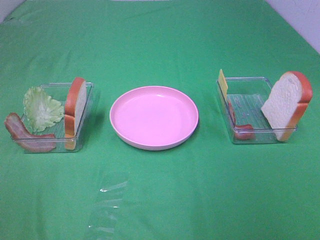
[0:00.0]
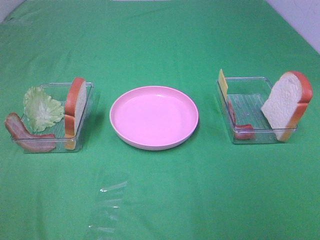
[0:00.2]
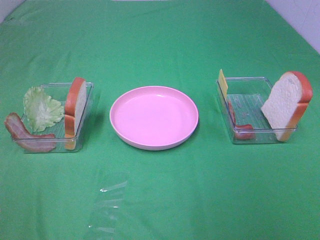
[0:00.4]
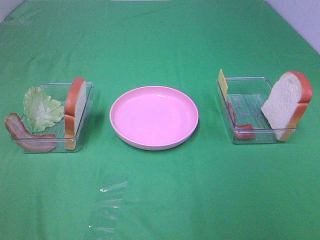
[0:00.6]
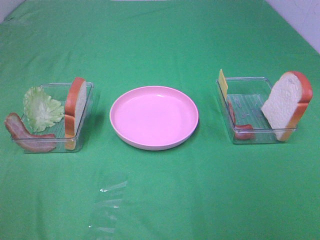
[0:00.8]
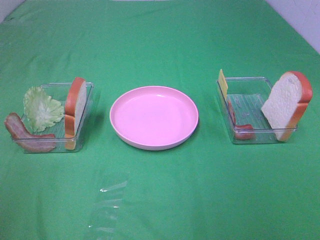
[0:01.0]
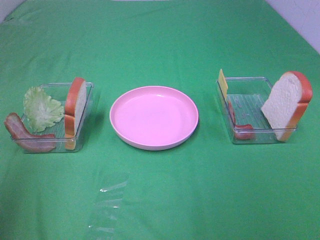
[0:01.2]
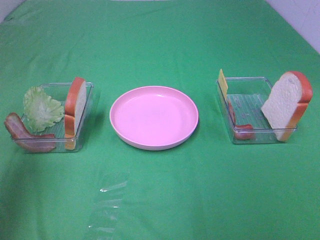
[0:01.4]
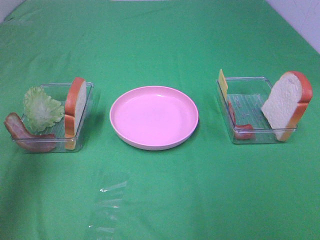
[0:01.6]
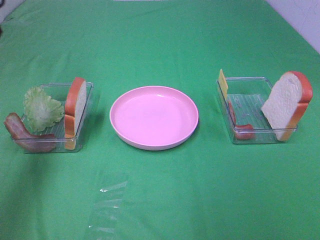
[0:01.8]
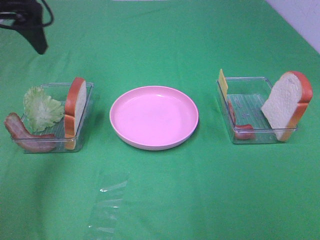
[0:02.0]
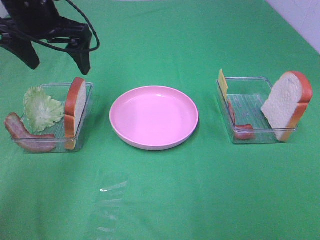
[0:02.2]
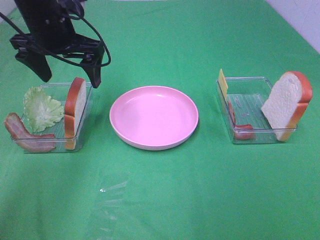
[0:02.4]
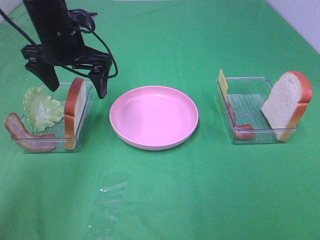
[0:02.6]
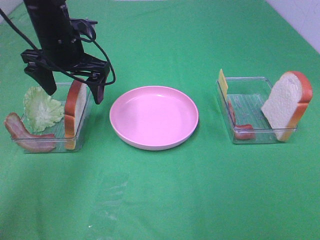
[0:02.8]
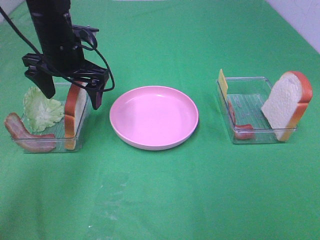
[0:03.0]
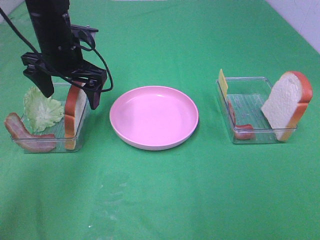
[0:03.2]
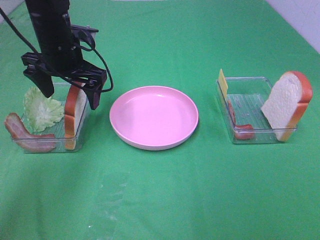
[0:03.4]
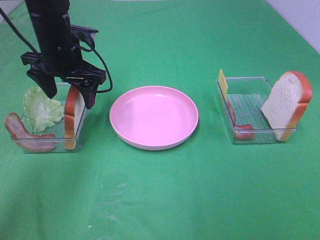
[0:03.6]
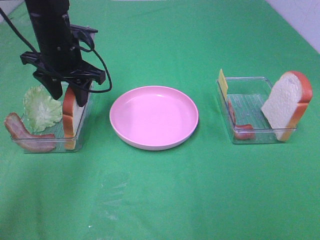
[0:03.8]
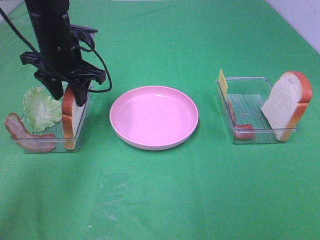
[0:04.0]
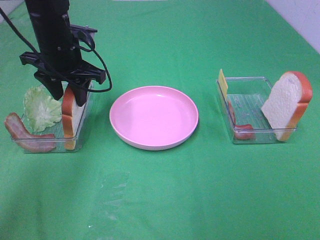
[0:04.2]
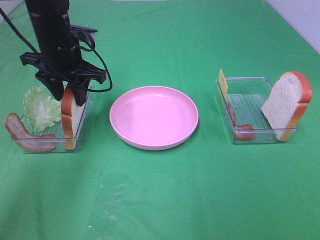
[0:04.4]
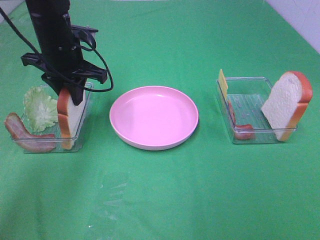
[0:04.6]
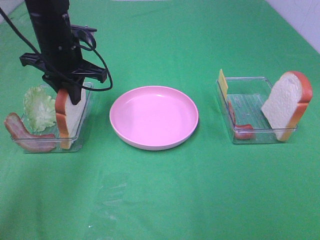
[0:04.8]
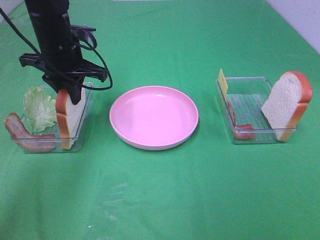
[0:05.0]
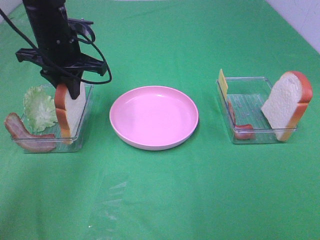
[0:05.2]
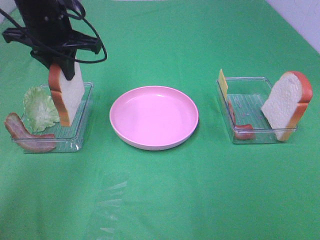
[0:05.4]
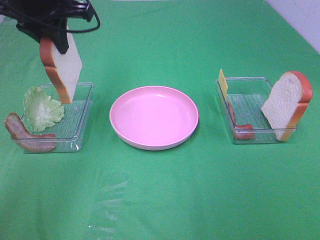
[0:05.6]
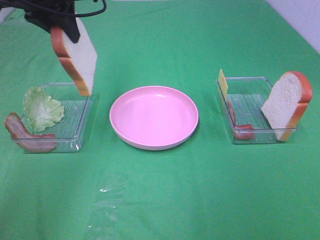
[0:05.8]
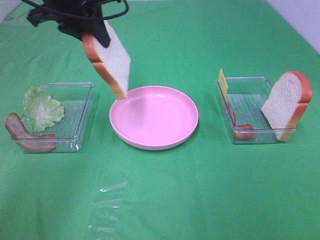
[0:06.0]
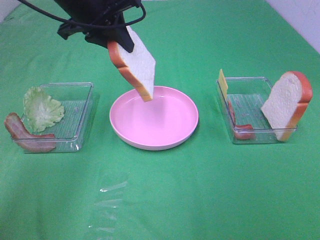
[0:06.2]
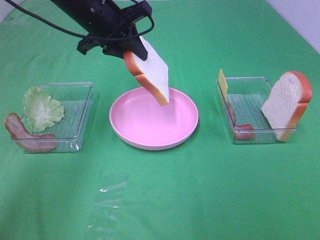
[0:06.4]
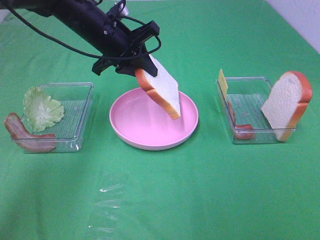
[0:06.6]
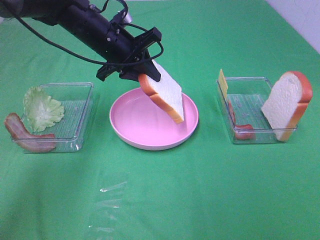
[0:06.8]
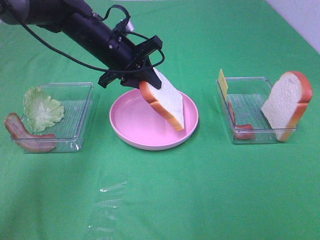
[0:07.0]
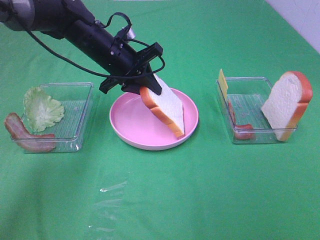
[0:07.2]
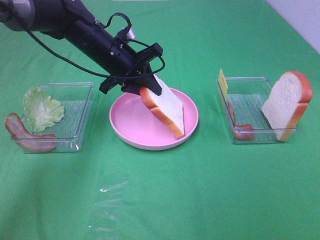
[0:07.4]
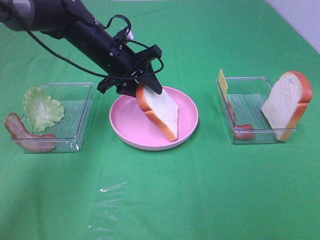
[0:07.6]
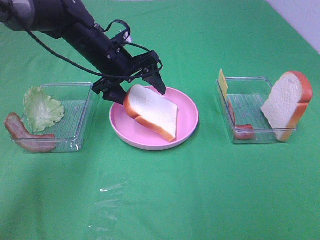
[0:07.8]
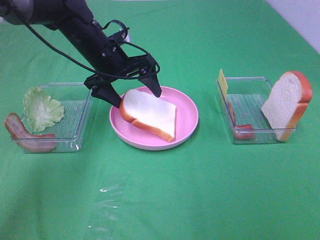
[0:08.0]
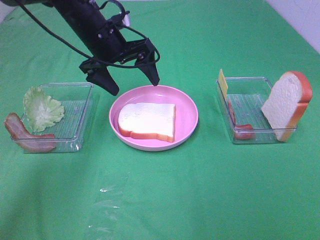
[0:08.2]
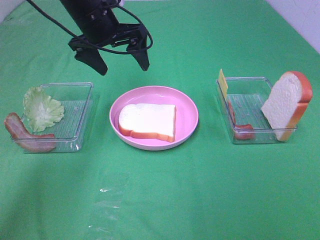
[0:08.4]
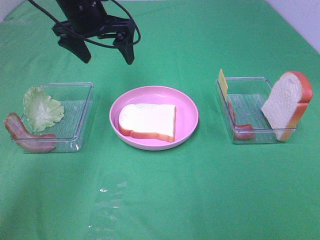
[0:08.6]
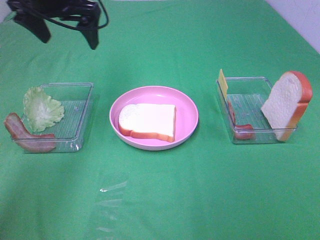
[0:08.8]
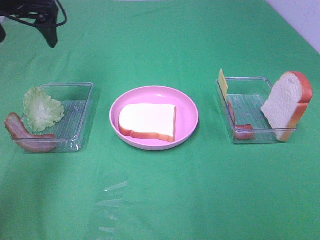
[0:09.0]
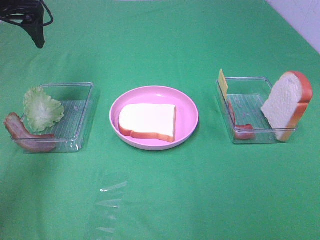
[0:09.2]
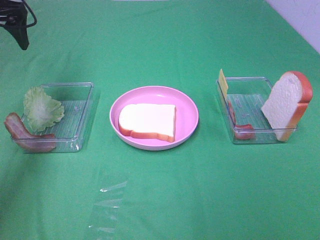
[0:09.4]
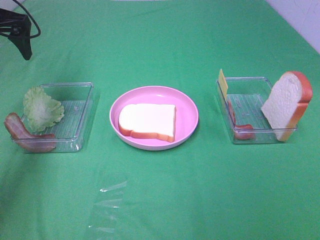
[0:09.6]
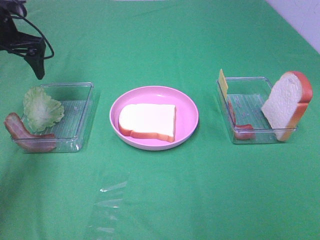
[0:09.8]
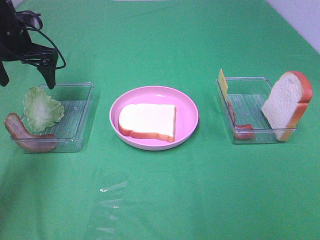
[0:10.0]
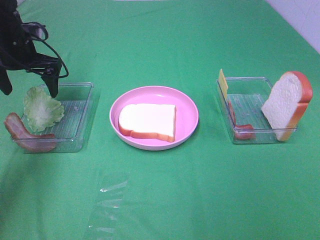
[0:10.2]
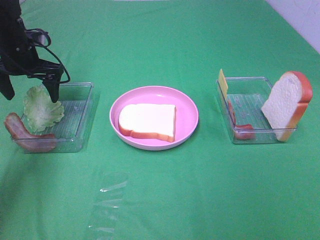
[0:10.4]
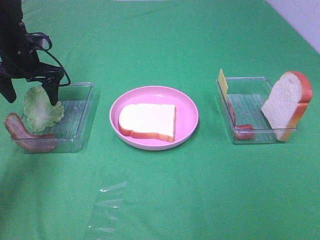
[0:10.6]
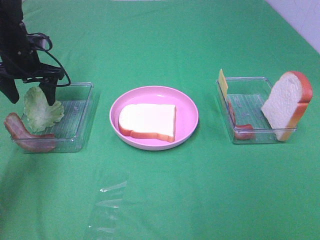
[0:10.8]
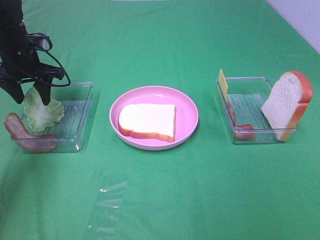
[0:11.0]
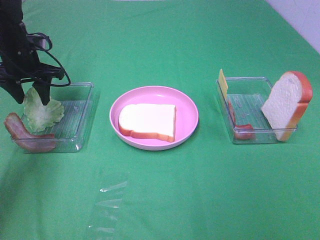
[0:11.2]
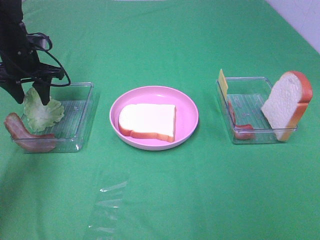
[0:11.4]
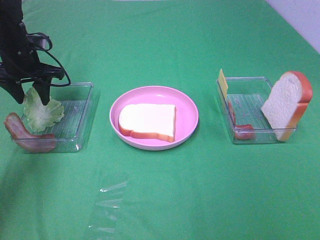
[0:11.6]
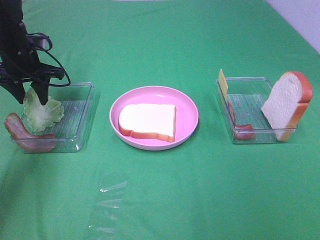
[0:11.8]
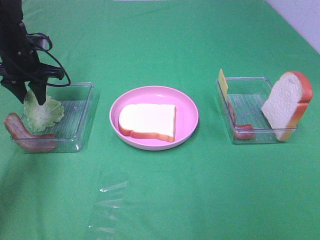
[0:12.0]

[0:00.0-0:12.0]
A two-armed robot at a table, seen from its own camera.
Task of the whole recording: Make sandwiches.
Step, 0:00.0 to 0:04.8: Left hand:grab the bread slice.
Step, 0:05.0 to 0:08.2: Left hand:place the bread slice on the plate.
0:00.0 to 0:01.6: The left gripper travels forward by some 30 cm.
0:01.6 to 0:03.0: The left gripper heads downward, to the right and forward, covering roughly 25 cm.
0:03.0 to 0:04.4: The left gripper closes.
0:04.4 to 0:06.0: The left gripper shifts roughly 10 cm upward.
0:06.0 to 0:07.6: The left gripper moves downward, approximately 15 cm.
0:07.6 to 0:09.0: The left gripper travels to the left and upward by about 20 cm, and opens its fingers.
0:09.0 to 0:10.4: The left gripper heads downward, covering roughly 15 cm.
0:10.4 to 0:12.0: The left gripper closes its fingers.

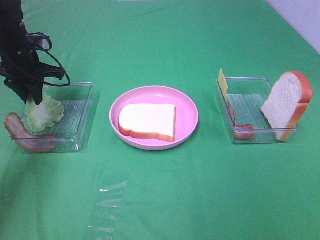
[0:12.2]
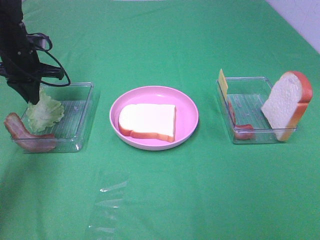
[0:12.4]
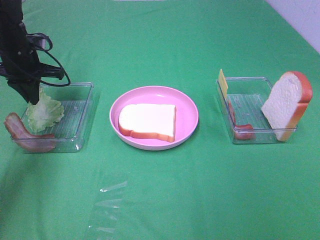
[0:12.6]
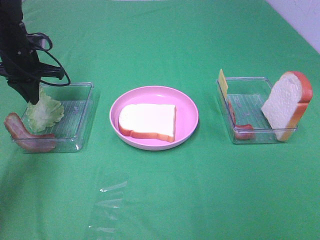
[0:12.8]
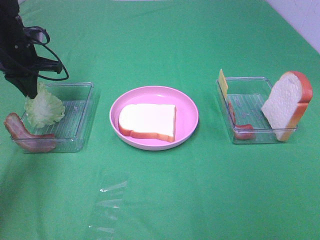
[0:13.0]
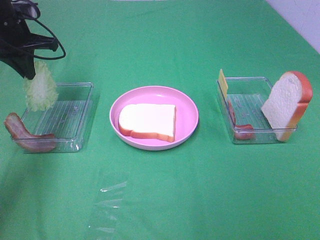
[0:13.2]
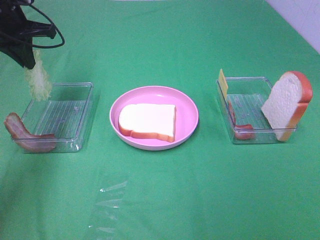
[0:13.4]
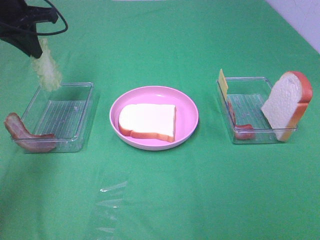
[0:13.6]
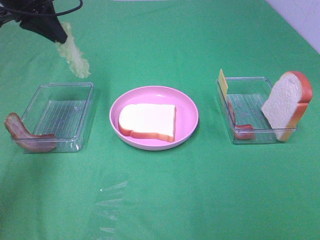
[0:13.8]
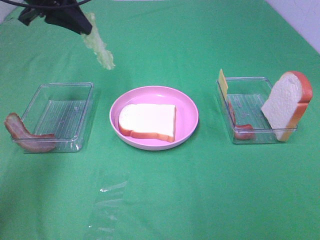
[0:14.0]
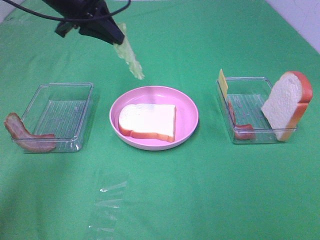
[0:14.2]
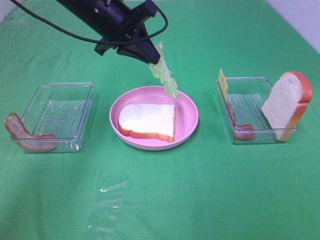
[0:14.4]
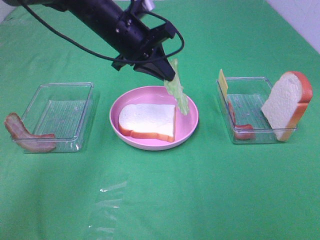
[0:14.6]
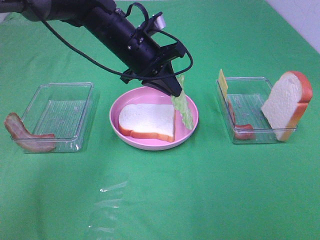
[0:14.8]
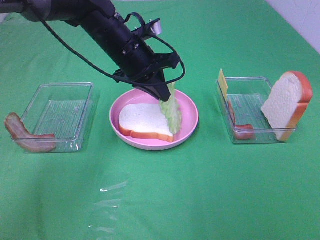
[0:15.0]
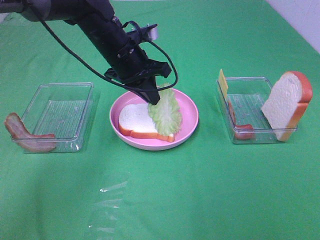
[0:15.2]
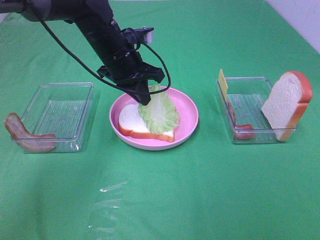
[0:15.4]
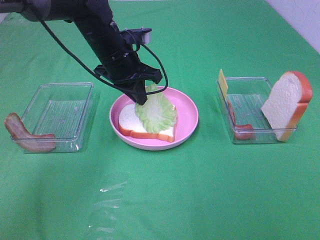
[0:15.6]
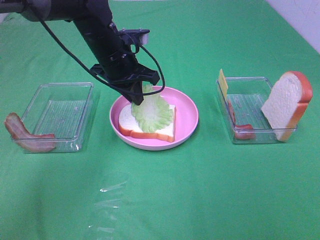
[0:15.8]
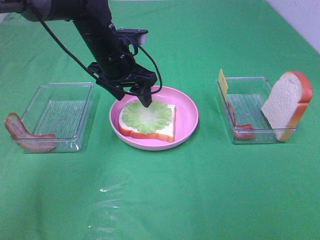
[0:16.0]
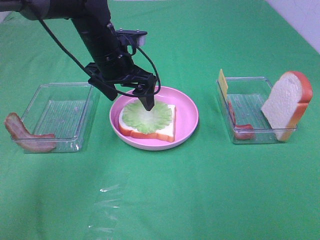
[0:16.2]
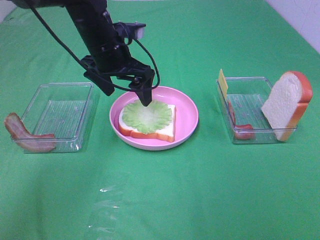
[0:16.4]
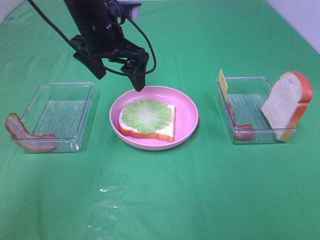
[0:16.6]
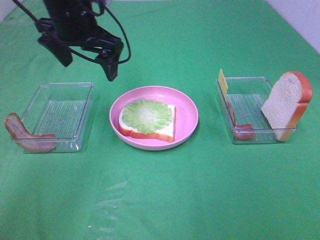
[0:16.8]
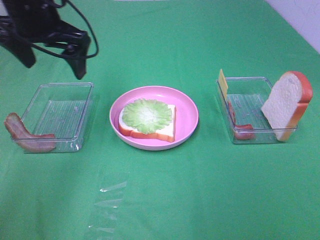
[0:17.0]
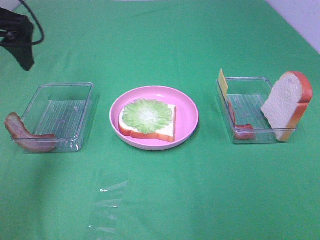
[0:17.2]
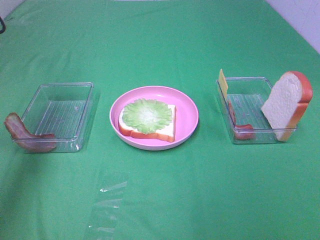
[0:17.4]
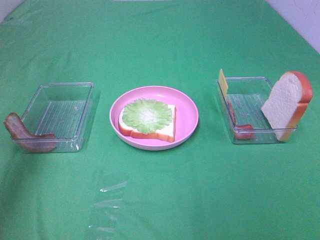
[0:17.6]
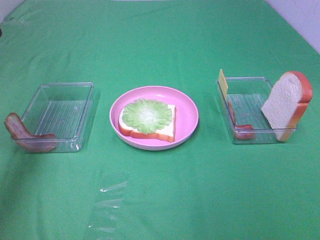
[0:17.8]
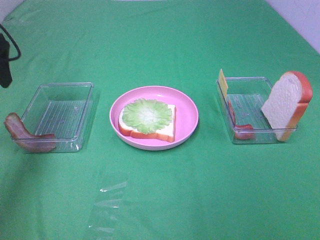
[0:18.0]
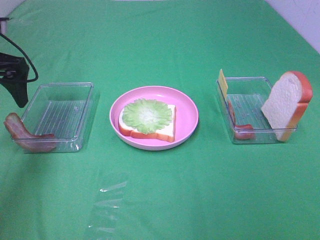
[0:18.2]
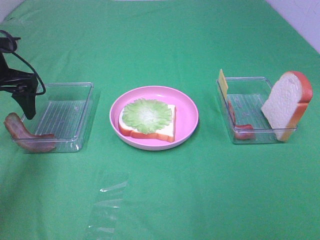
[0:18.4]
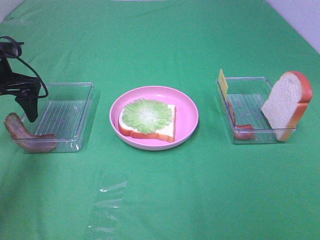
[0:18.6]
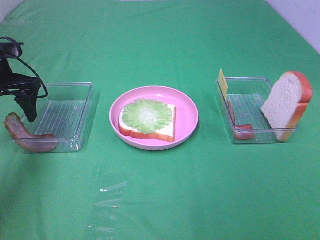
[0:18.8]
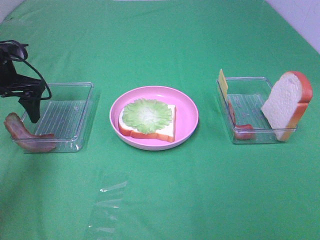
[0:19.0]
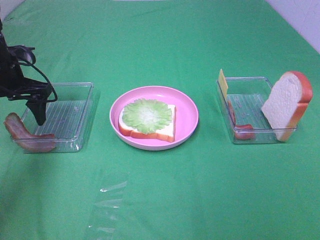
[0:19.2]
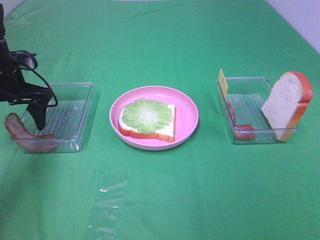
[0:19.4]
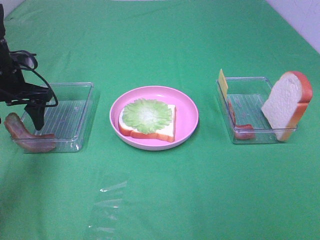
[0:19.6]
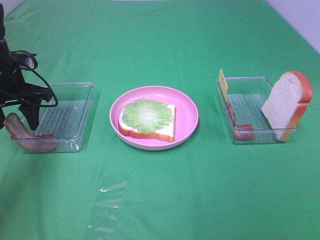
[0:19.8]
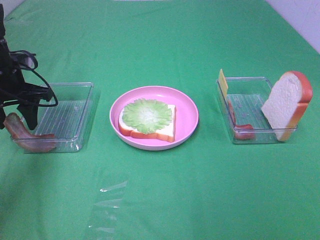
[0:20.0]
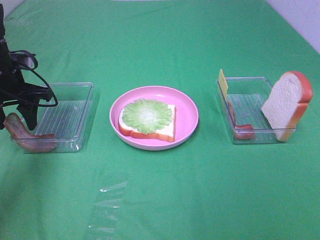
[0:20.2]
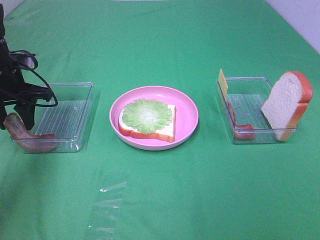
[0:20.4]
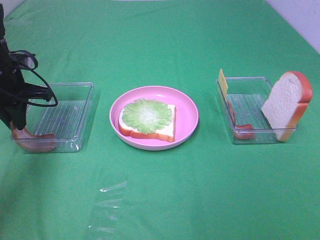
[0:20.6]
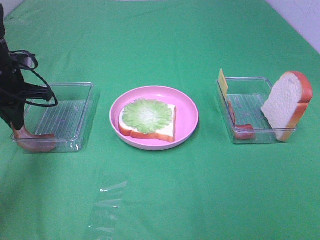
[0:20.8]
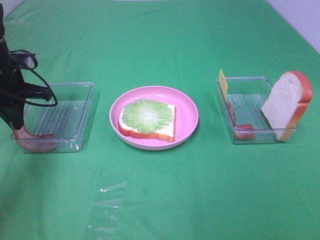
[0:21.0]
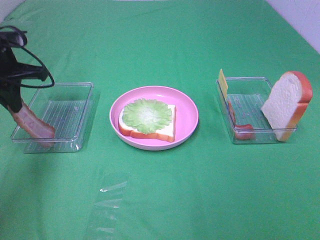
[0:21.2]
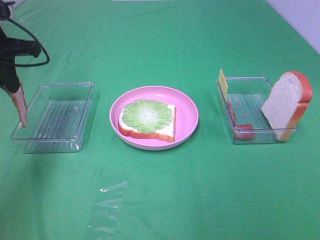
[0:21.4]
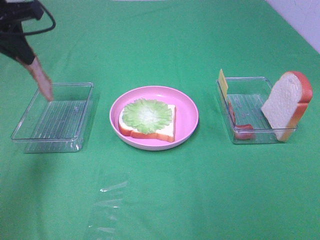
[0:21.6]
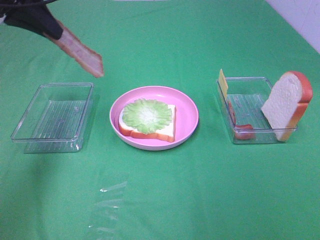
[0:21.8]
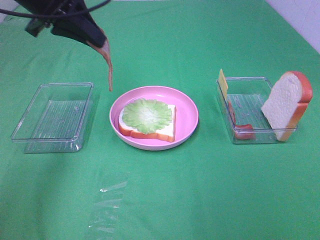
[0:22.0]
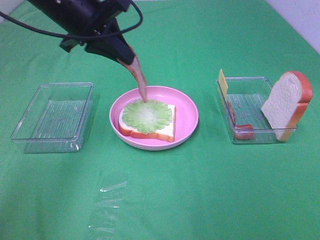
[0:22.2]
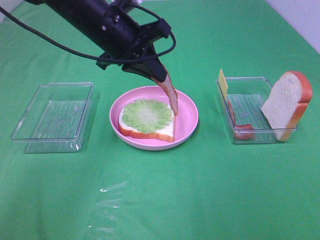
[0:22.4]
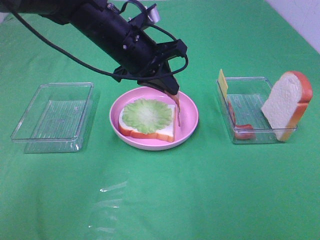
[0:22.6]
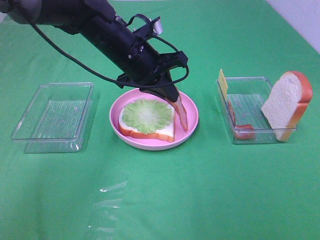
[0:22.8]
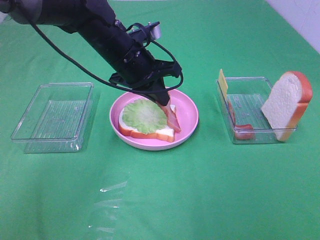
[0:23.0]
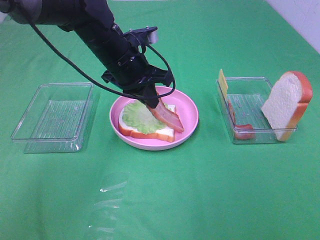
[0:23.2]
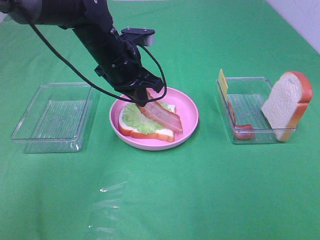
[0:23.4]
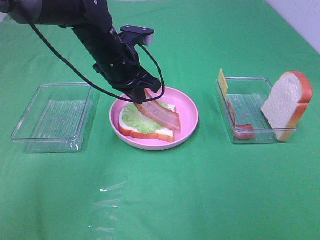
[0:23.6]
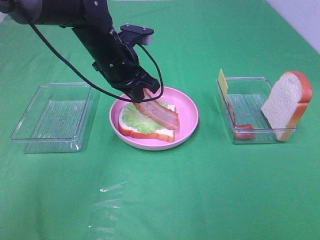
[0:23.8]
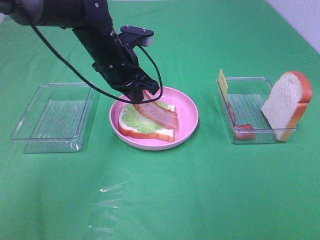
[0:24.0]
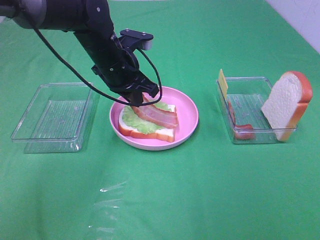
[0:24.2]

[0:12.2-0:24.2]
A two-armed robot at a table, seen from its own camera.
Task of the whole recording: Make sandwiches.
Step, 0:12.6 to 0:16.0: Left hand:place the lettuce slice on the bread slice.
Step, 0:16.2 to 0:20.8: Left hand:grab the bacon.
0:12.2 to 0:13.8: The left gripper travels upward by roughly 15 cm.
0:13.8 to 0:15.2: The left gripper heads to the right and downward, covering some 20 cm.
0:15.2 to 0:16.6: The left gripper goes about 5 cm upward, and opens up.
0:16.6 to 0:18.2: The left gripper moves to the left, approximately 20 cm.
0:18.2 to 0:19.8: The left gripper travels downward by approximately 5 cm, and closes up.
0:19.8 to 0:21.2: The left gripper is displaced upward by some 5 cm, and closes up.
0:21.2 to 0:22.6: The left gripper travels to the right by some 20 cm.
0:22.6 to 0:24.2: The left gripper changes place by approximately 5 cm.
